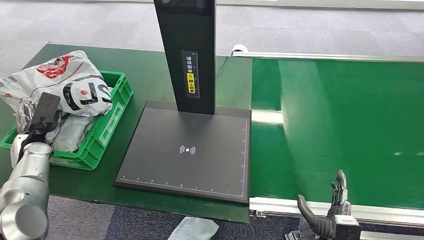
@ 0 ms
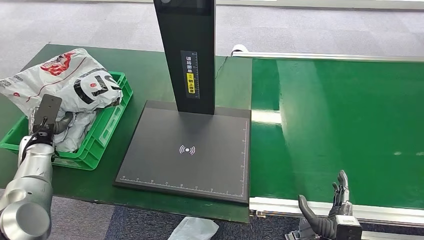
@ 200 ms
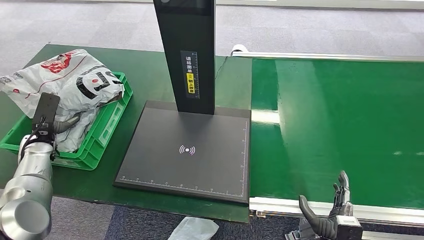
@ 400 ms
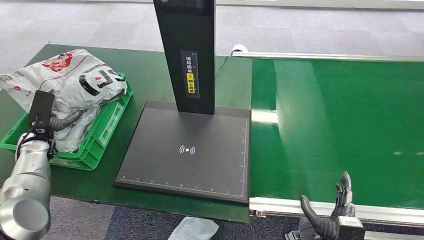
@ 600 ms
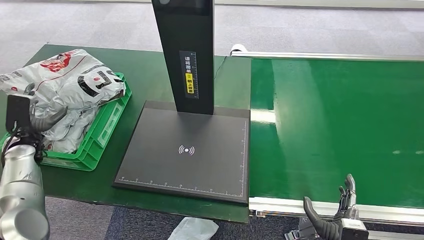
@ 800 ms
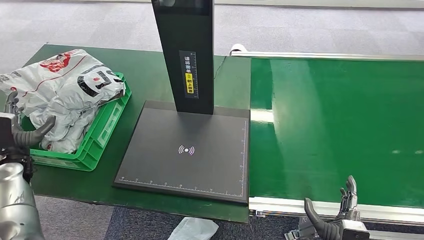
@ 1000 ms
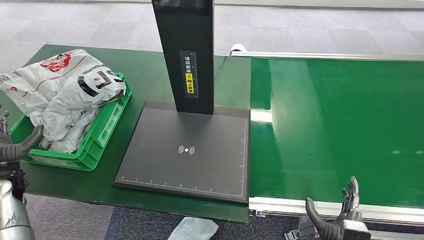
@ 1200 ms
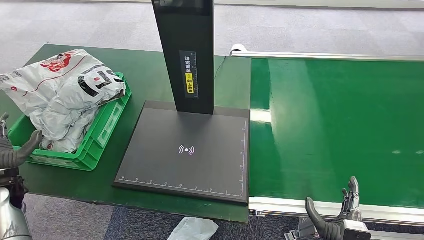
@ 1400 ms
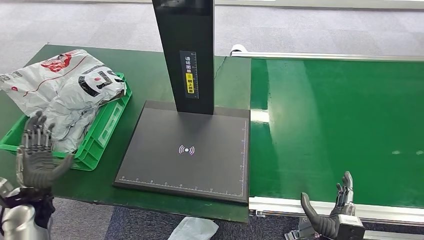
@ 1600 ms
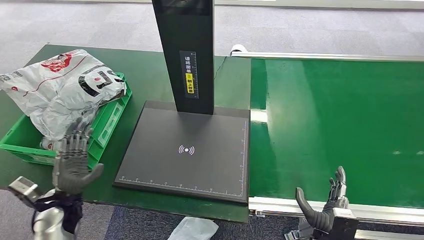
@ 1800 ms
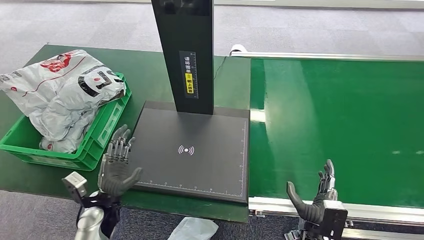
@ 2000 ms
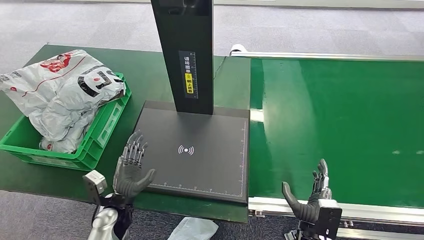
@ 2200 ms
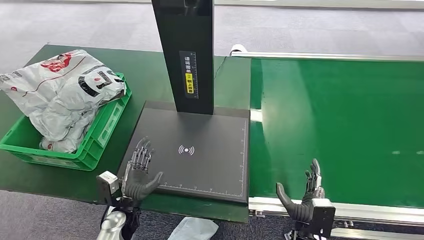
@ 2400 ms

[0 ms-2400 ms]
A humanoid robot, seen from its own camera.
Step, 0 ms to 2200 ms: Place the package into the parcel locker.
0 ms to 1200 ms: The left hand travels backward by about 10 cm.
1200 ms to 2400 ms: The right hand travels to the left by roughly 5 cm; the left hand moves to the right, roughly 30 cm.

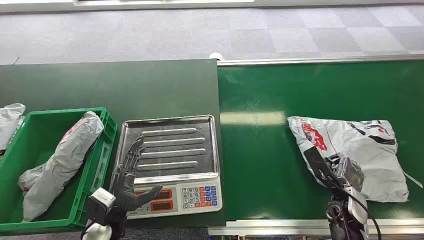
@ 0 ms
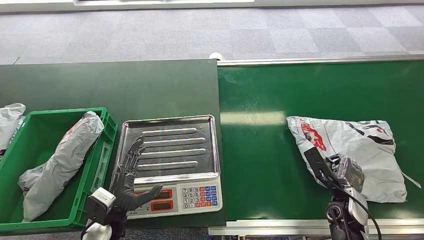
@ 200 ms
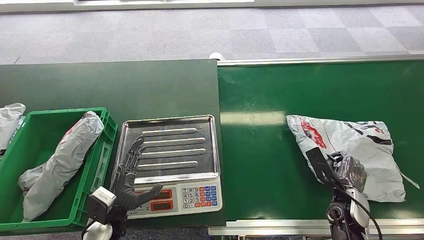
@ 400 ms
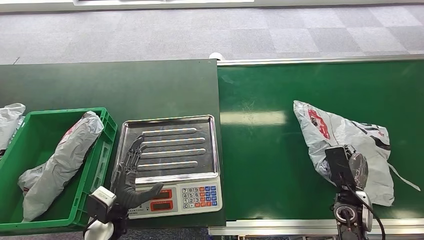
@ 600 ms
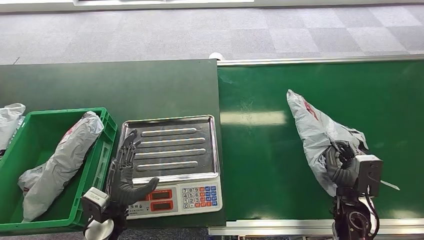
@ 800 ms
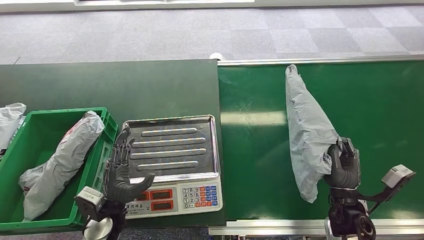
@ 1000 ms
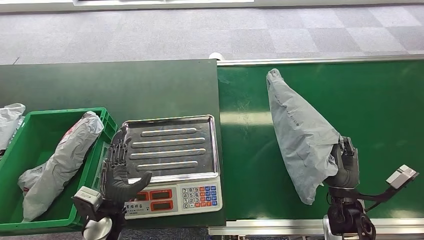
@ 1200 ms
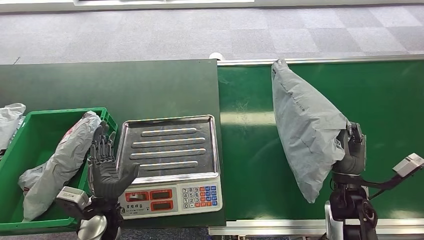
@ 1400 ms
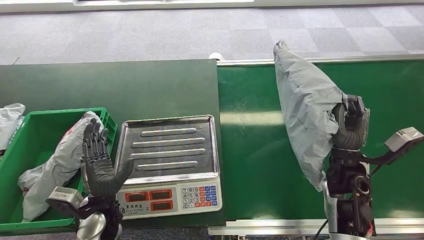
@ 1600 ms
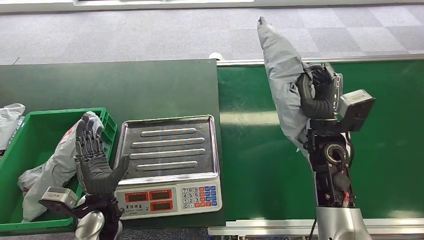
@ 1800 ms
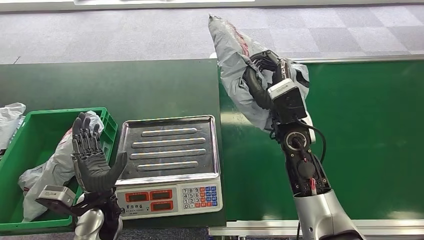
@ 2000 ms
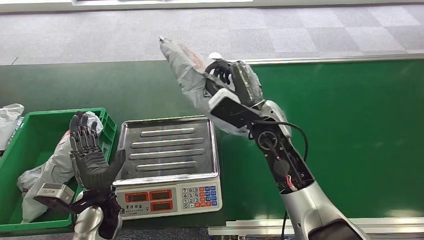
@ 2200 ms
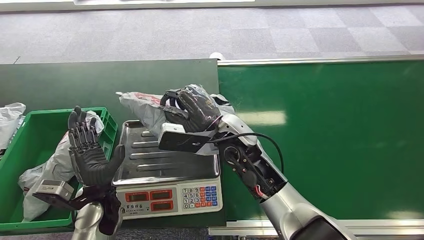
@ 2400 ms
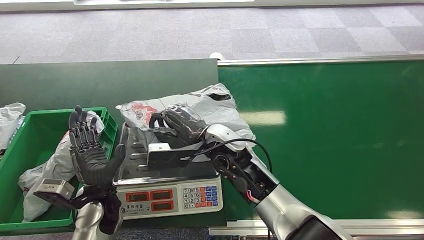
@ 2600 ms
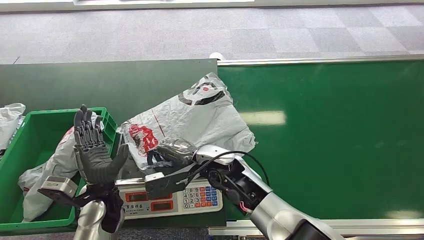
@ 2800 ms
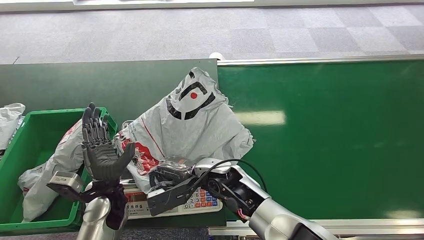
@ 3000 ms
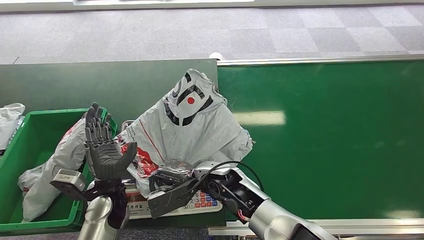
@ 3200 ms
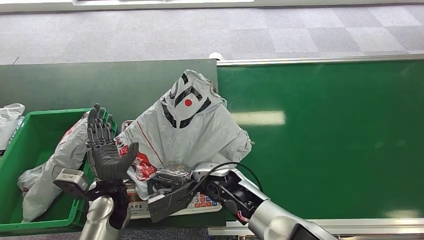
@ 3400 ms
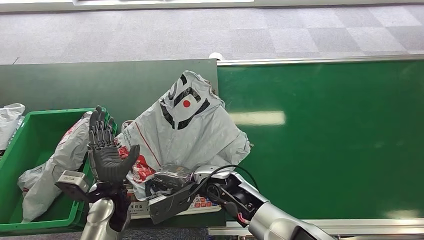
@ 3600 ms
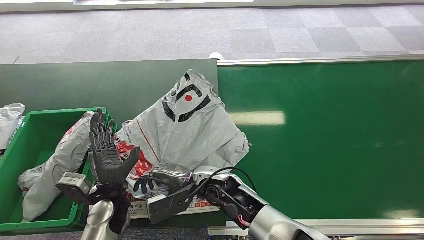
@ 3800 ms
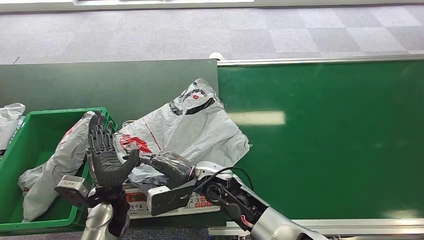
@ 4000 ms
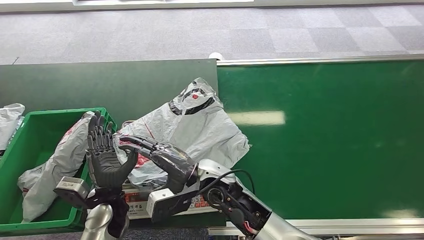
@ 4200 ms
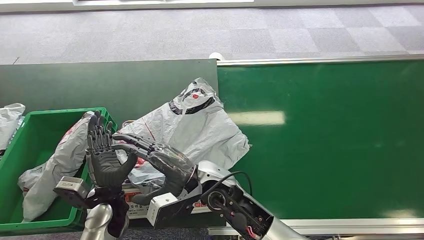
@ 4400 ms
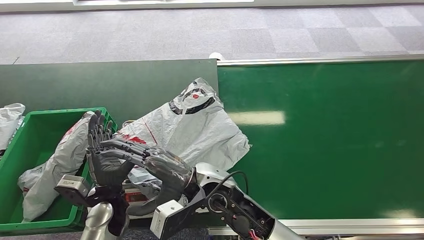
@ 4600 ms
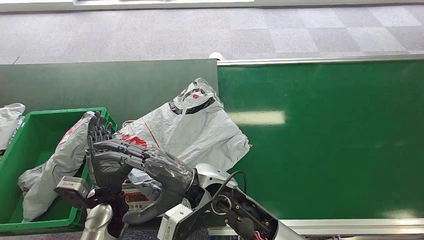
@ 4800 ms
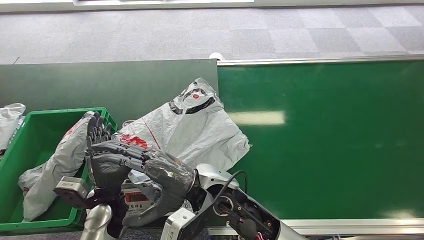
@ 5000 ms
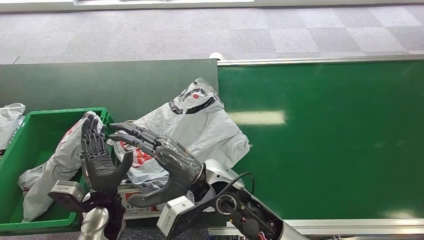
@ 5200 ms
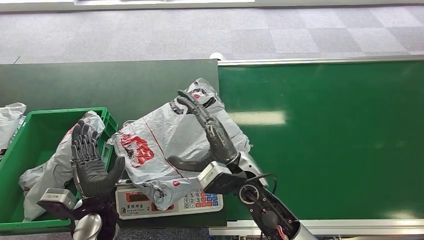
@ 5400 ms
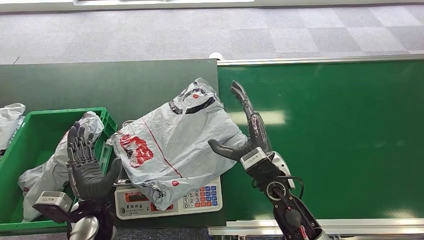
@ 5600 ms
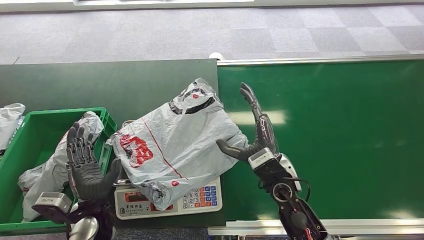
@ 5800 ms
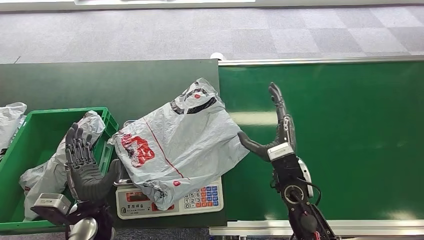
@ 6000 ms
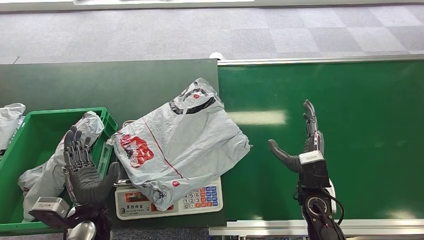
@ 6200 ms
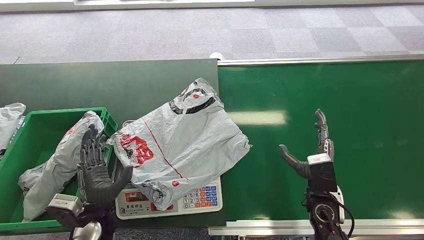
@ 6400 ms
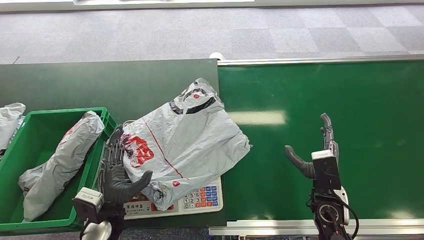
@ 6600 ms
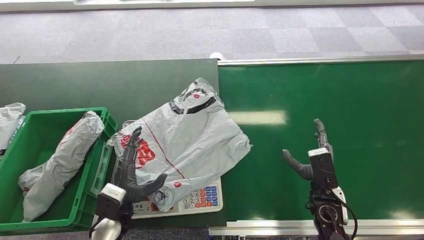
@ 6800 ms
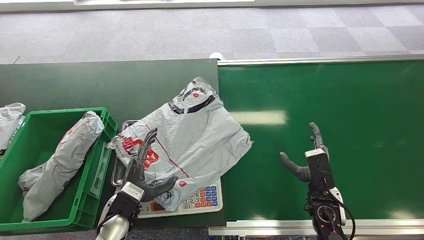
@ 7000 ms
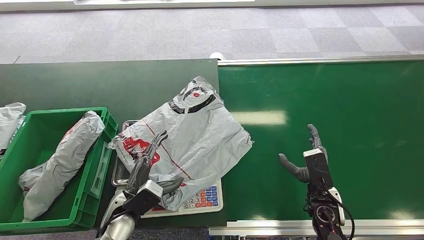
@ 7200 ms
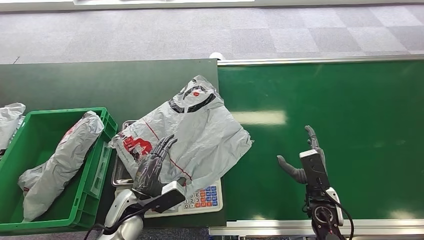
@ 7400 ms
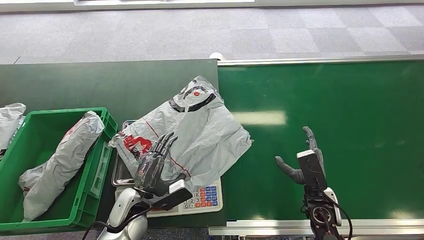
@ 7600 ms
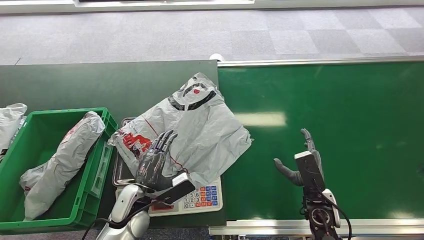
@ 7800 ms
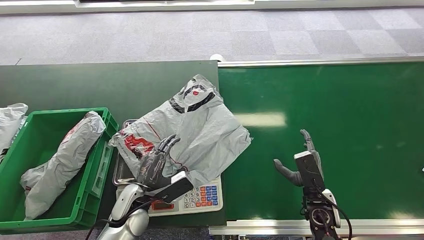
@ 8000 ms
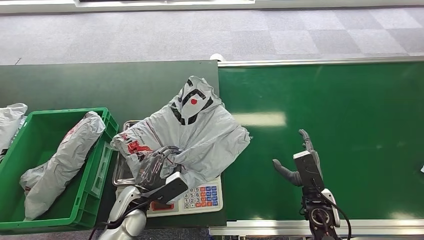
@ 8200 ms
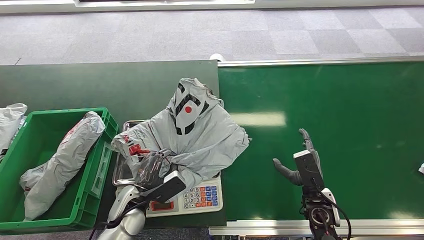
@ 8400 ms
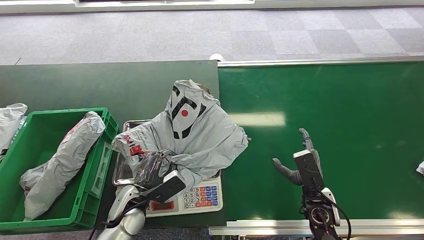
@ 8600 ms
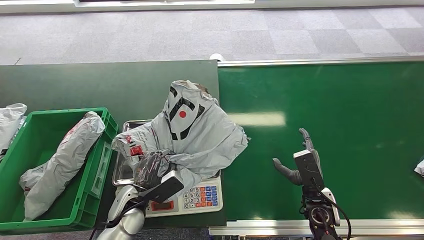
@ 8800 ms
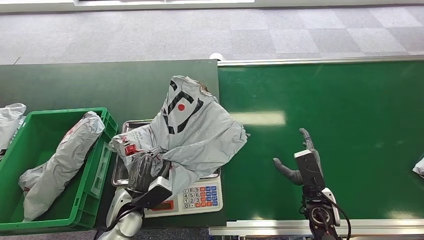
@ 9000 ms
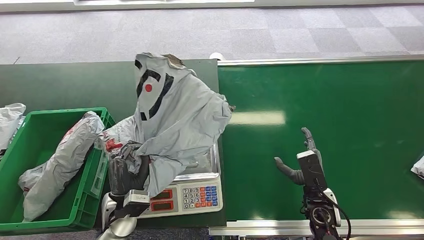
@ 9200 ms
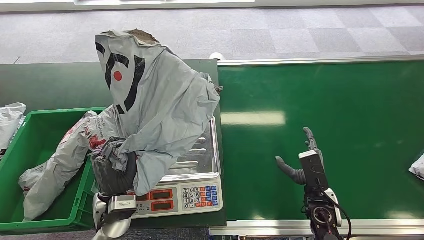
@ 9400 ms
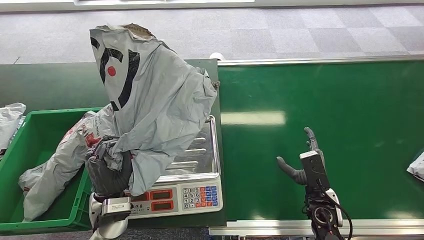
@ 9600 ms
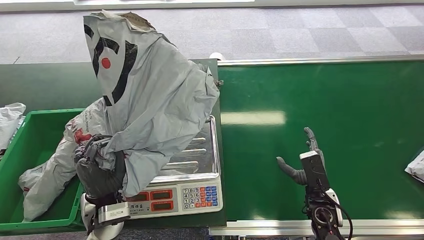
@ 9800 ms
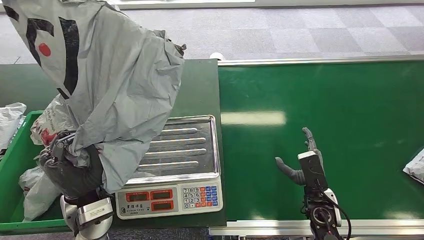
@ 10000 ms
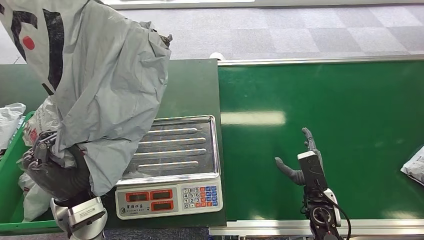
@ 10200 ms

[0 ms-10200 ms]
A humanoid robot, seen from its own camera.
Step, 0 ms to 1600 ms: Pick up the package from the conveyor belt.
Step, 2400 ms to 4000 ms: Place the package onto the inbound machine.
3000 ms to 4400 ms: The right hand shifts by some 5 cm.
4400 ms to 5800 ms: The right hand travels to the right by about 15 cm.
5800 ms to 7200 ms: The left hand heads to the right, covering about 5 cm. The right hand travels to the right and downward by about 15 cm.

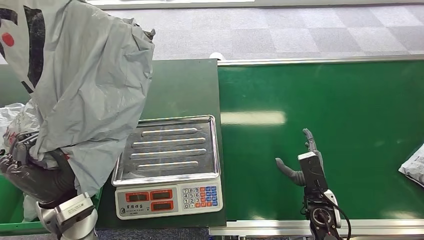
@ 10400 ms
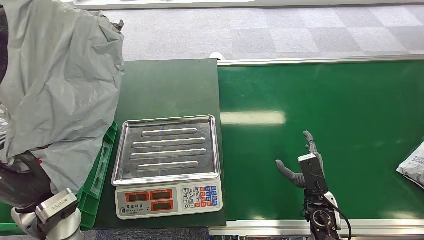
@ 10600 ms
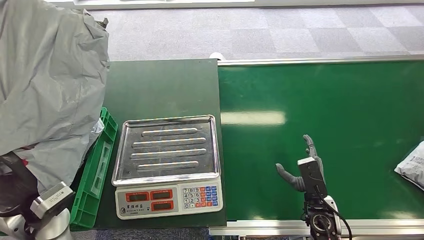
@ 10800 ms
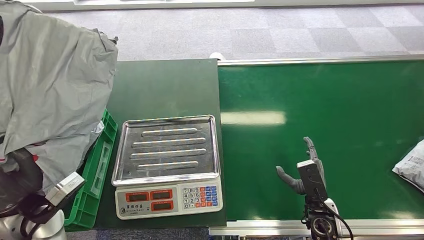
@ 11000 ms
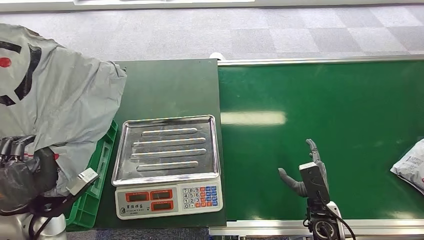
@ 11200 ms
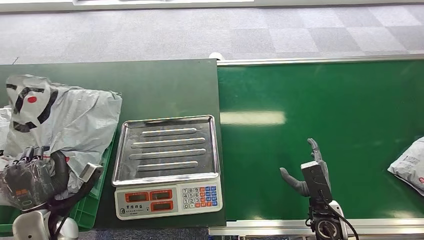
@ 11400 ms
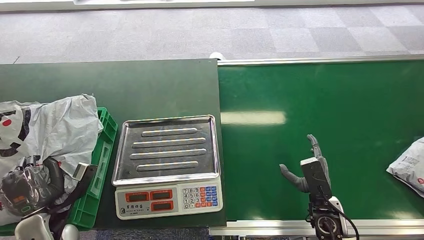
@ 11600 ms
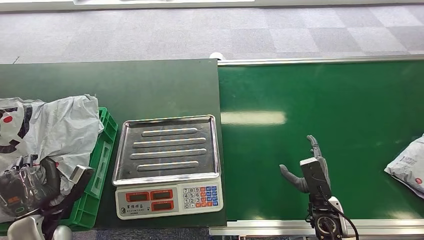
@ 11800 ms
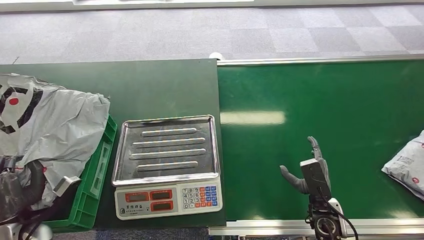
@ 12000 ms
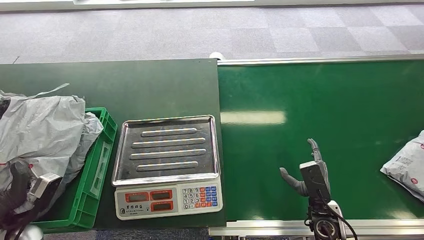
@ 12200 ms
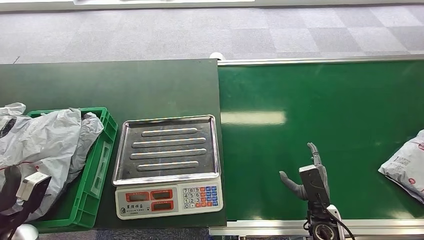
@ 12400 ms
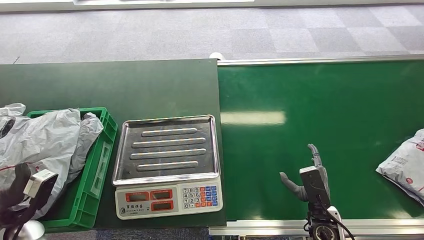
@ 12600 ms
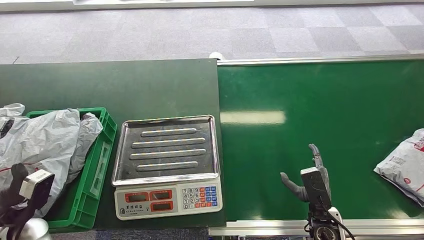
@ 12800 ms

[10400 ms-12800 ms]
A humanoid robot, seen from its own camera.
Step, 11000 ms to 12800 ms: Place the package into the parcel locker.
11600 ms to 12800 ms: The left hand moves about 5 cm.

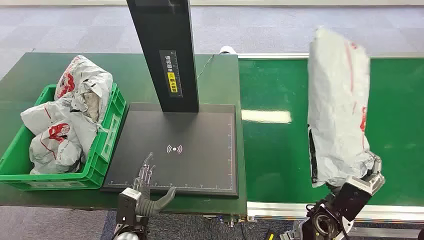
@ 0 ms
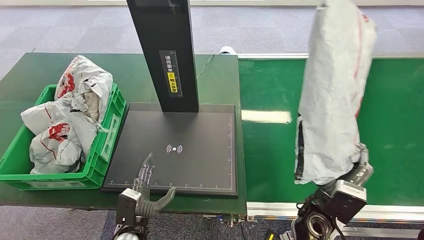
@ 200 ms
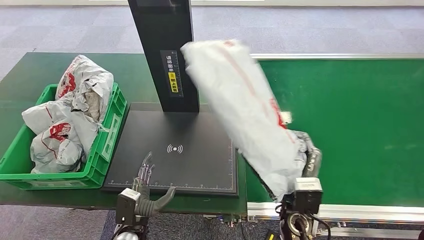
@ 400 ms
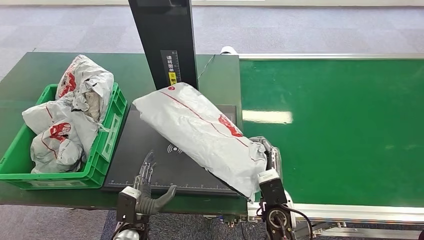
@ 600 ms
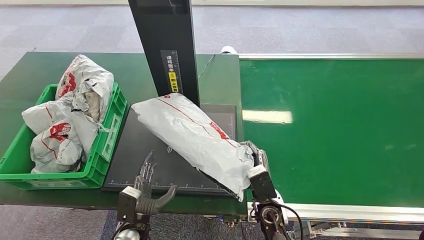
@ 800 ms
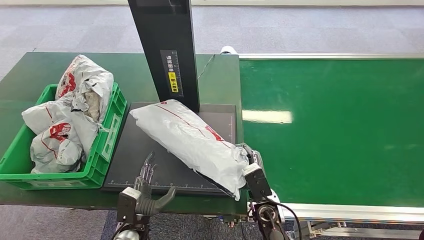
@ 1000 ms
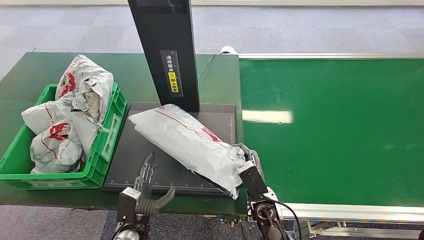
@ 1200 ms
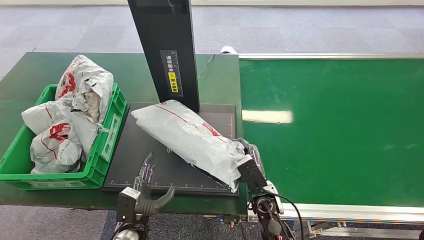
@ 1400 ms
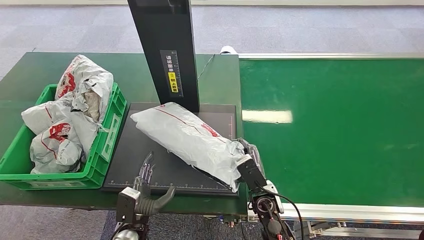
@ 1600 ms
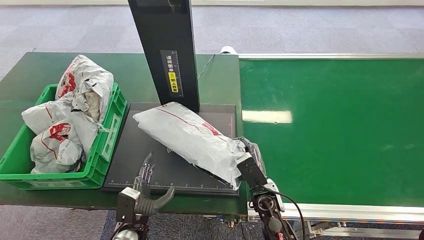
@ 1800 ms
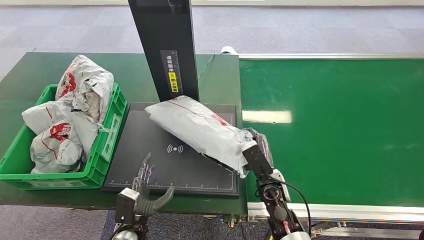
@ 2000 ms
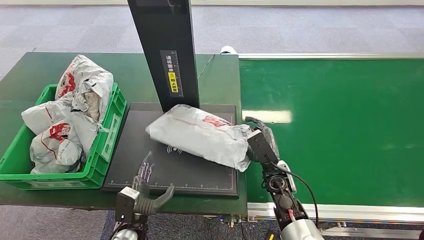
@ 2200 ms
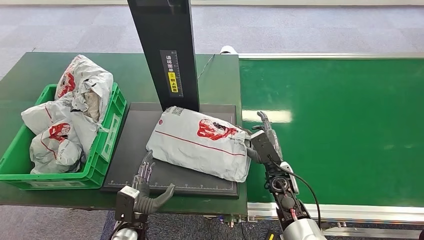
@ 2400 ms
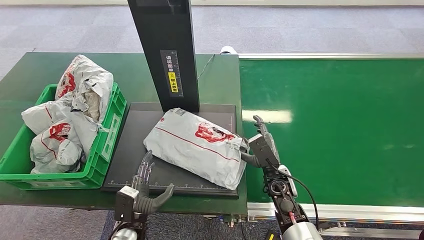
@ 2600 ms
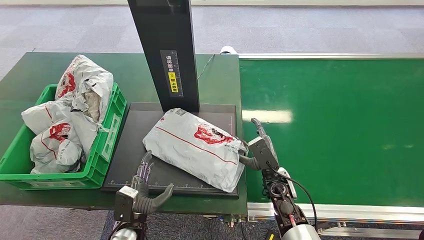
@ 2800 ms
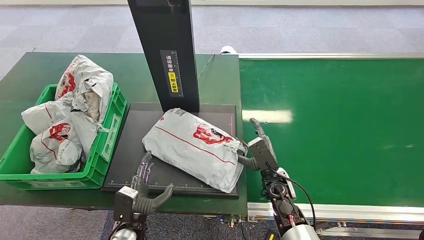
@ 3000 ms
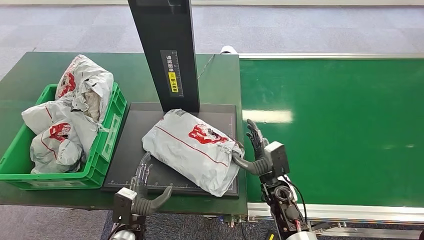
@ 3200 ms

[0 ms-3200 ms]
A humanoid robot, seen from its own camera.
1600 ms to 3200 ms: The right hand ends up approximately 5 cm from where it was.
